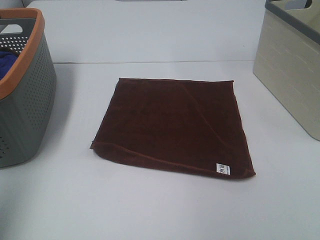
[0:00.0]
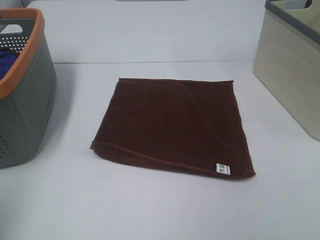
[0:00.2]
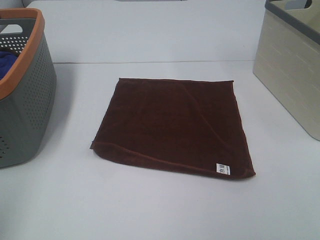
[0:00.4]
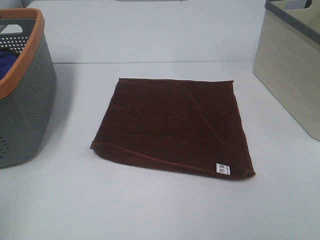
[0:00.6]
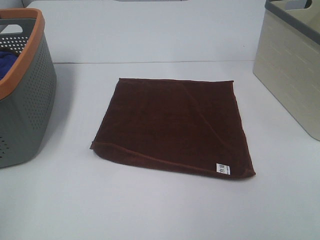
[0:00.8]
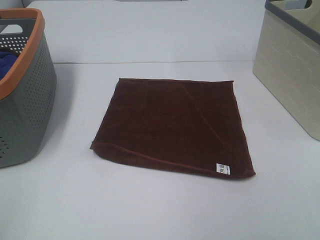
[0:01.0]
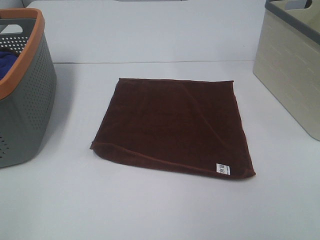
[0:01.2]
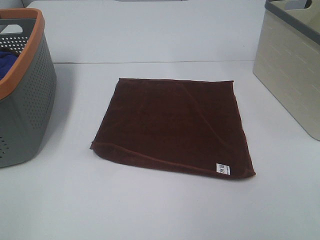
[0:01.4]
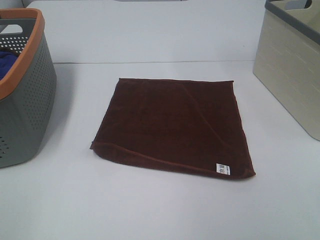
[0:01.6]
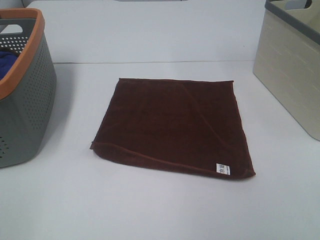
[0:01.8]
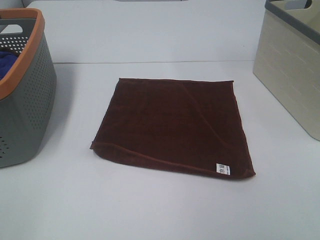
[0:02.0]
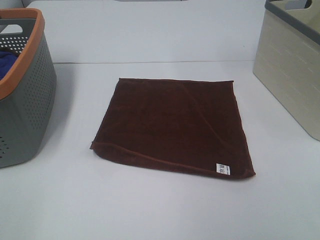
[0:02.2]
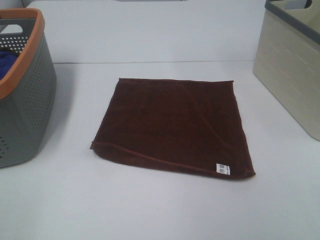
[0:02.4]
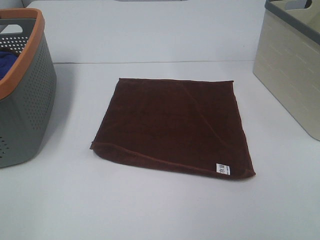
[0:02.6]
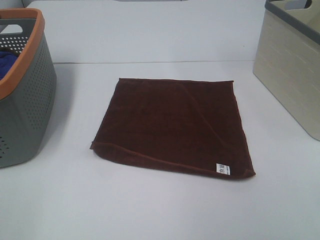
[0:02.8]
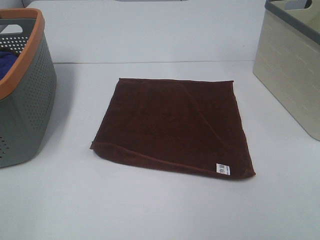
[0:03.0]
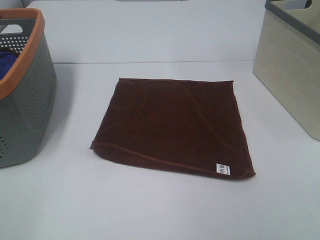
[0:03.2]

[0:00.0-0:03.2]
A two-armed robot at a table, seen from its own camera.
Task of the whole recording: Remove the towel and place it.
0:00.0 to 0:01.6: The left gripper shifts some 15 cm backward and downward.
0:01.6 to 0:03.2: The two grippers keep their place.

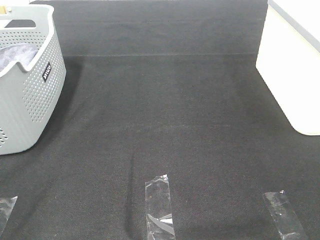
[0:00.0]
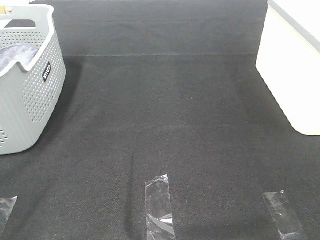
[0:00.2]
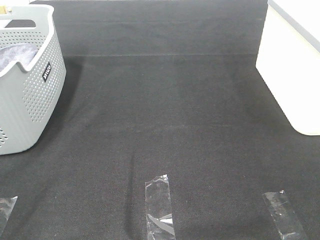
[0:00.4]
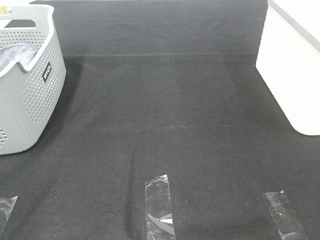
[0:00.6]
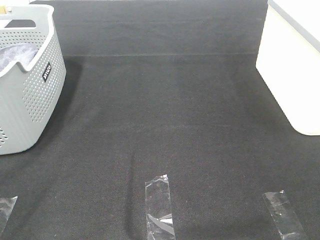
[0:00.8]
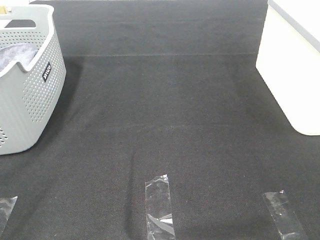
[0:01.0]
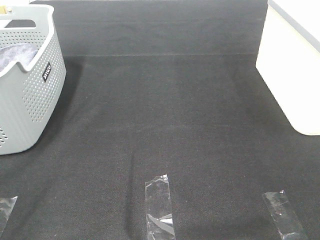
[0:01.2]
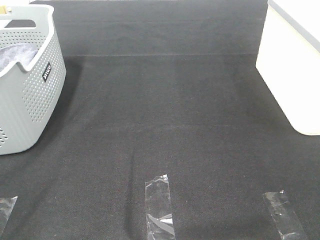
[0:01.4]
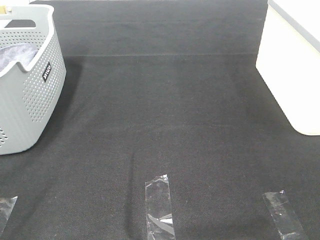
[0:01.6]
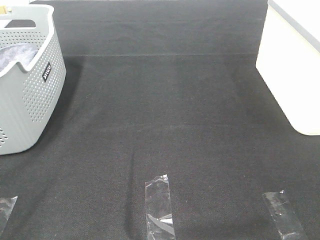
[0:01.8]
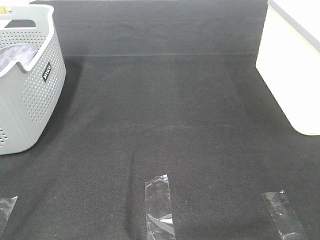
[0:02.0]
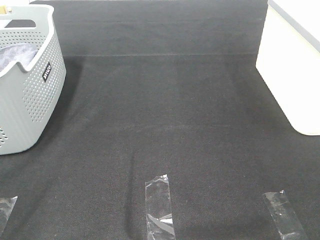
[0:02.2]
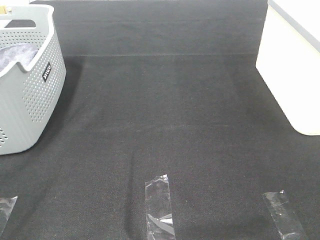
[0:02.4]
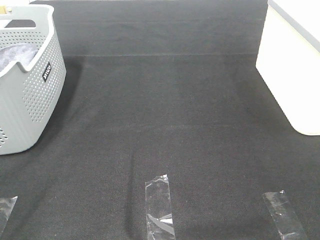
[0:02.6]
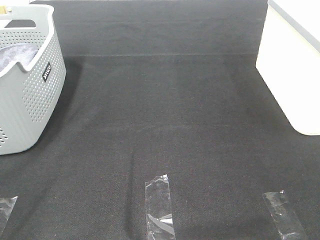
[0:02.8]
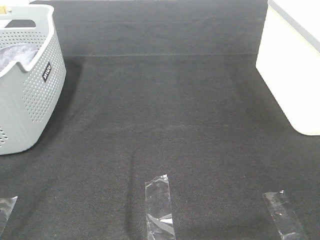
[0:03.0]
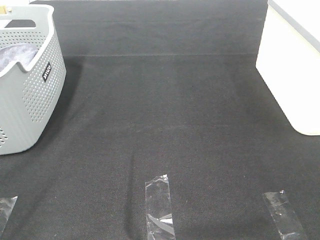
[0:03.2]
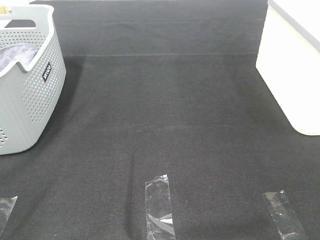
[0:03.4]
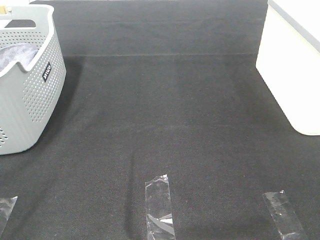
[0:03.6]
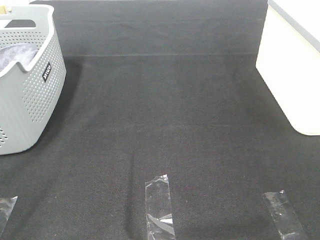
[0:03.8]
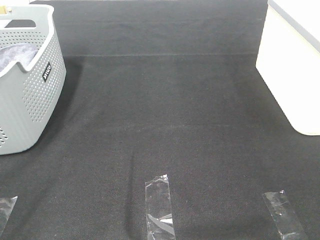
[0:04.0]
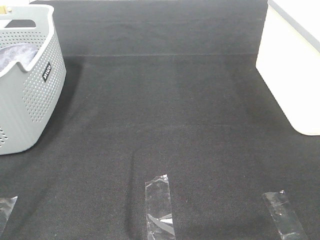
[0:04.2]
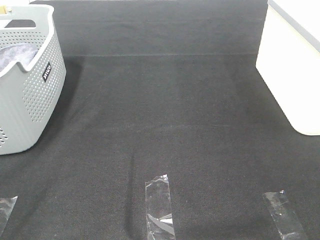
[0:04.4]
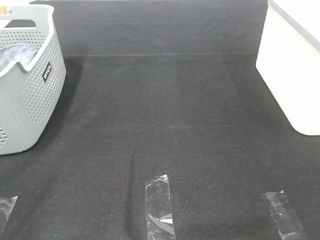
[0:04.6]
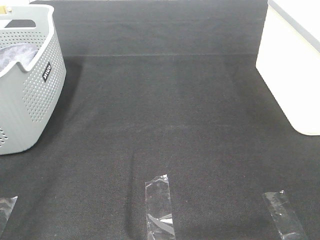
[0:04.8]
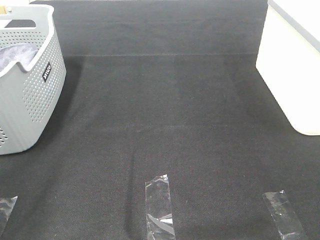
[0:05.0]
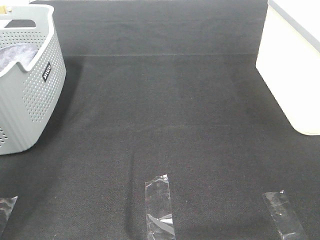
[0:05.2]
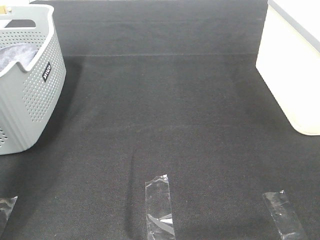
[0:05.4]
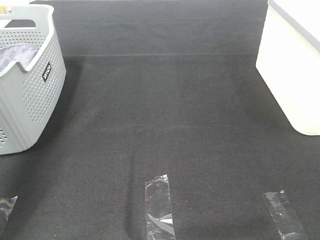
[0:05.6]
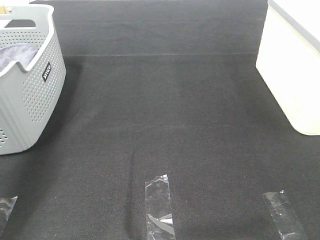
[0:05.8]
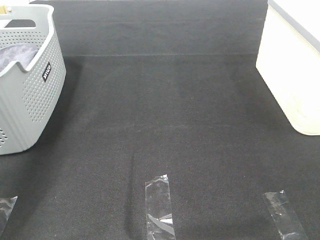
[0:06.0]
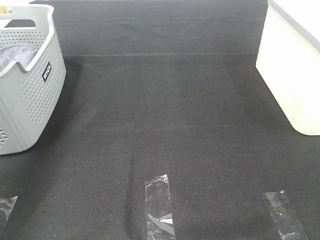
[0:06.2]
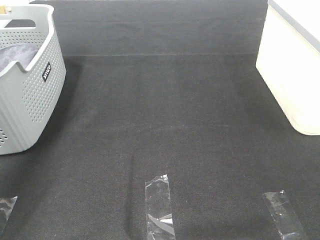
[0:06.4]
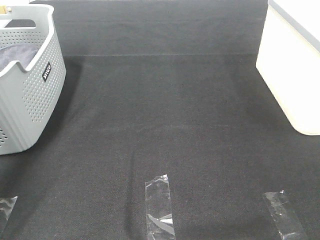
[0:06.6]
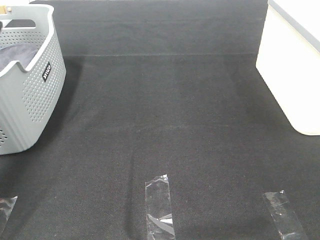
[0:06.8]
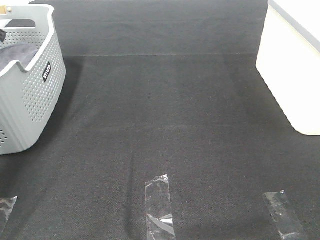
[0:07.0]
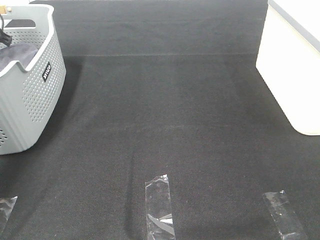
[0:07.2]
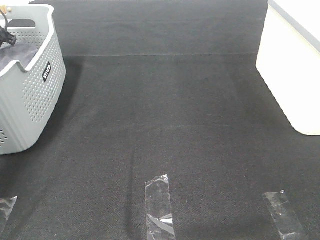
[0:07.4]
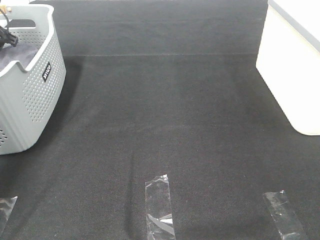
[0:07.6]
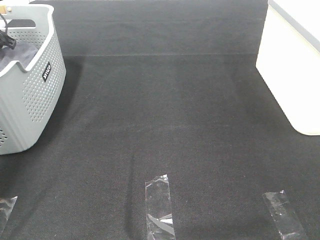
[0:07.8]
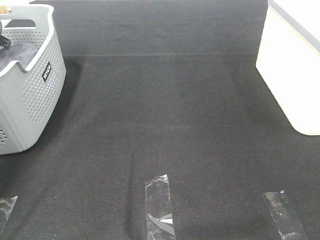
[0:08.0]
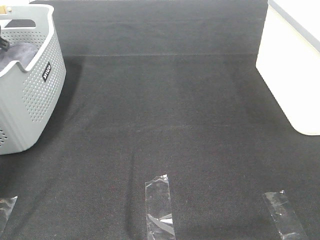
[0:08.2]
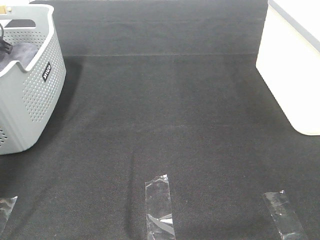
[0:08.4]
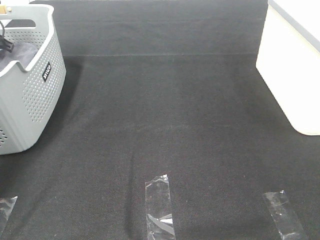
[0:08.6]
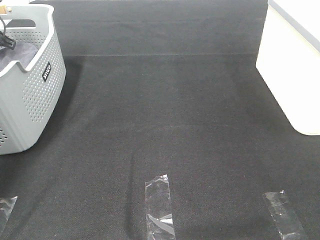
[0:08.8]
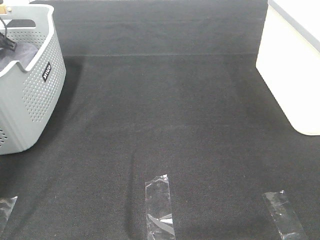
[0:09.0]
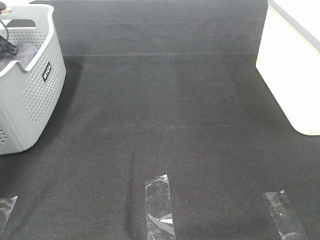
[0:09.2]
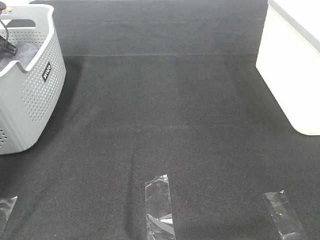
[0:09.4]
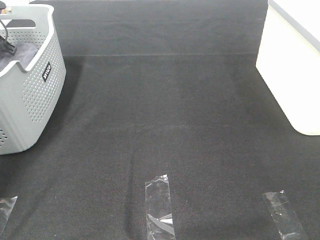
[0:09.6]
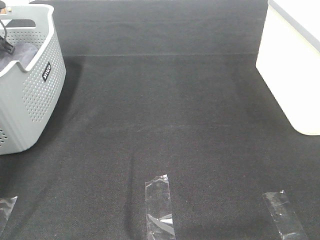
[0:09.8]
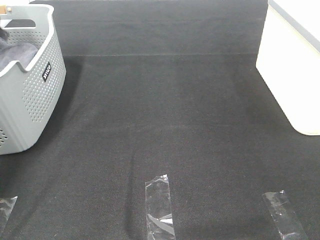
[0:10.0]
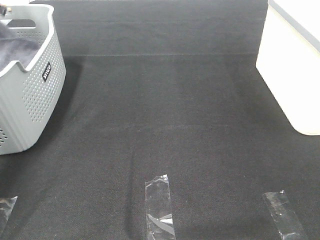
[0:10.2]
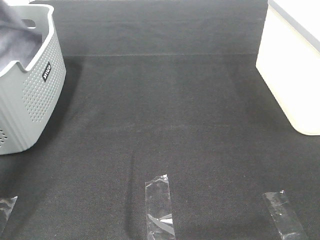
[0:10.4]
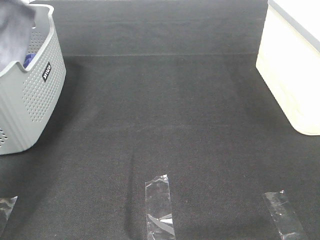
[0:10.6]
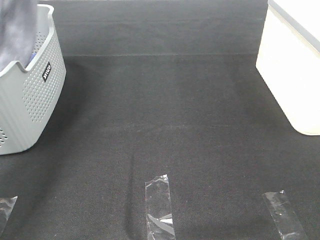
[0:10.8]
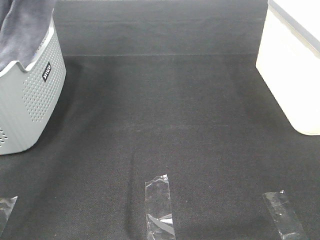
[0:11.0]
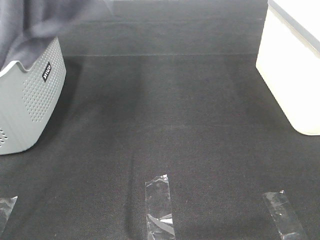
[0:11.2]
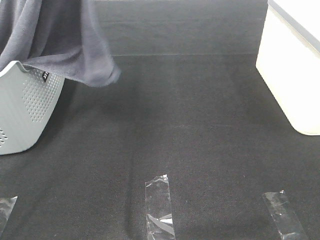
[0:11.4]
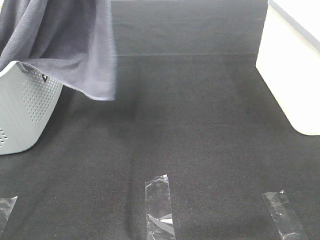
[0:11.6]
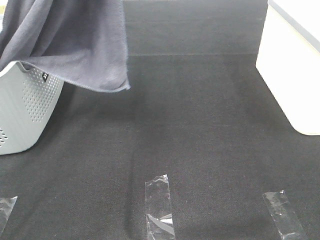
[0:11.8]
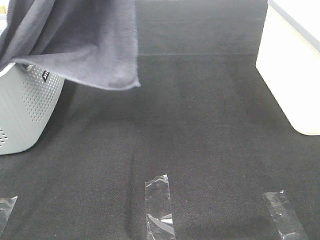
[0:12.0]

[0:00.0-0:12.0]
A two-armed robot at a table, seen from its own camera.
Task of the whole recording: Remove the towel and place it.
0:00.0 to 0:04.4: Both grippers stay put.
0:04.4 to 0:06.0: The left gripper goes about 40 cm forward.
0:06.0 to 0:07.6: The left gripper travels downward, forward and to the left by roughly 20 cm.
0:09.0 to 0:10.4: The left gripper heads upward, covering roughly 15 cm, and closes up.
0:10.4 to 0:12.0: The left gripper travels to the right, backward and upward by some 35 cm; the right gripper travels forward by roughly 5 cm.

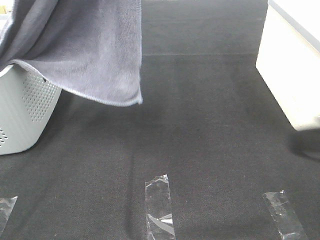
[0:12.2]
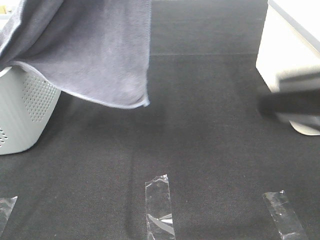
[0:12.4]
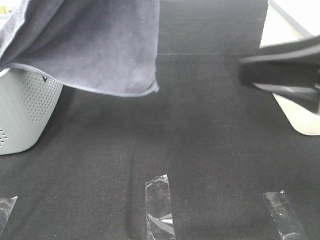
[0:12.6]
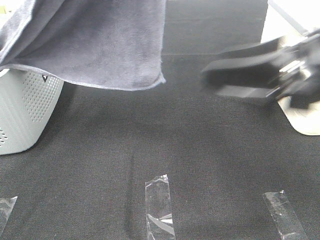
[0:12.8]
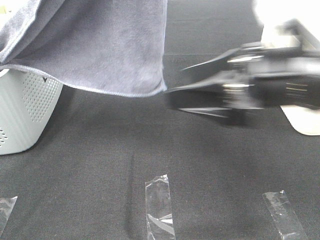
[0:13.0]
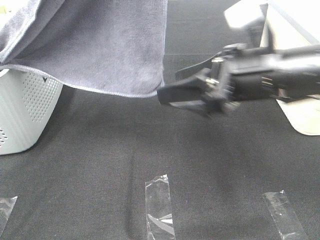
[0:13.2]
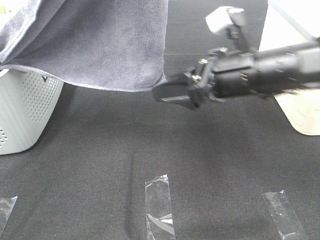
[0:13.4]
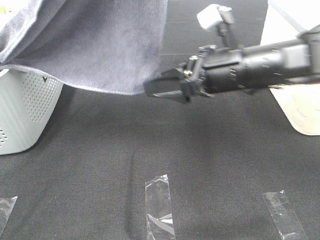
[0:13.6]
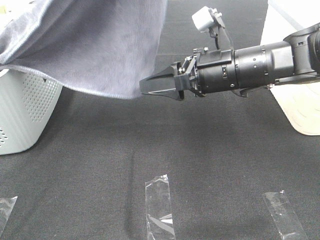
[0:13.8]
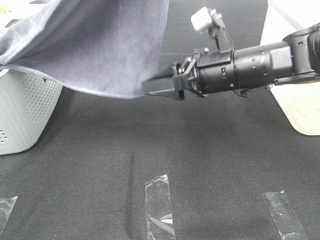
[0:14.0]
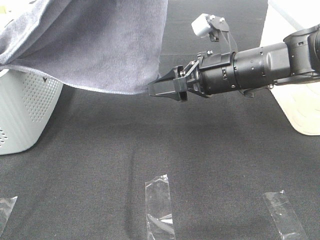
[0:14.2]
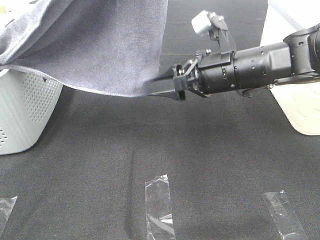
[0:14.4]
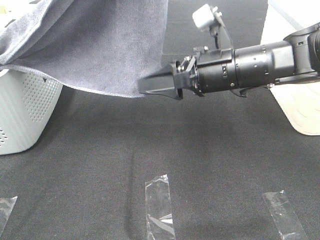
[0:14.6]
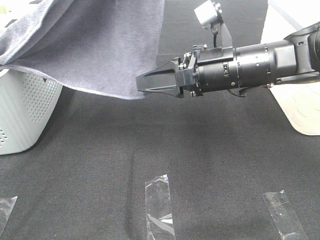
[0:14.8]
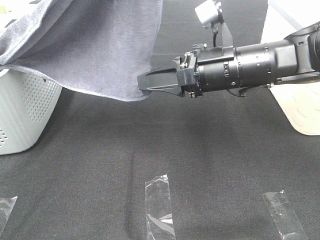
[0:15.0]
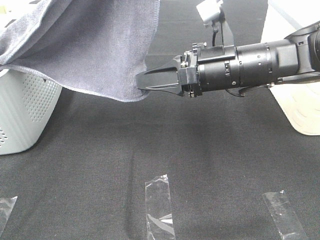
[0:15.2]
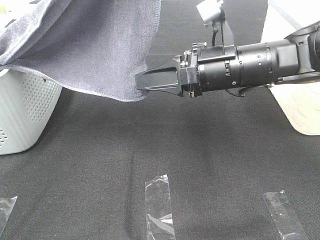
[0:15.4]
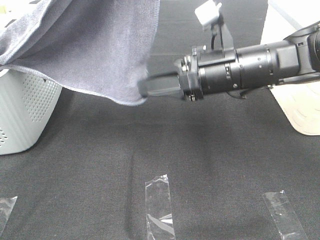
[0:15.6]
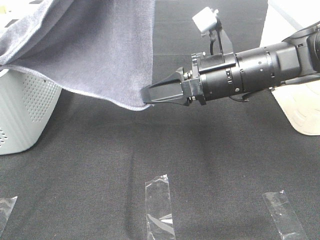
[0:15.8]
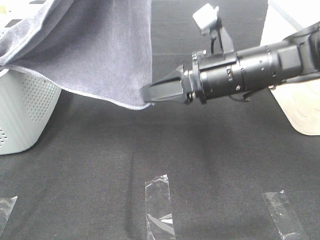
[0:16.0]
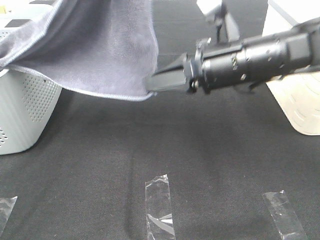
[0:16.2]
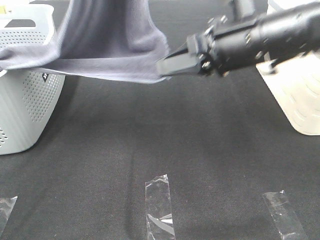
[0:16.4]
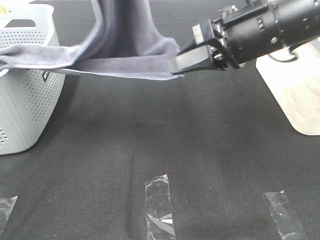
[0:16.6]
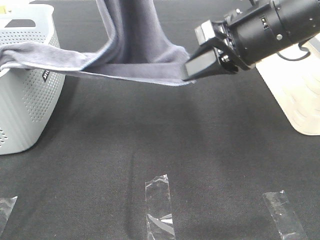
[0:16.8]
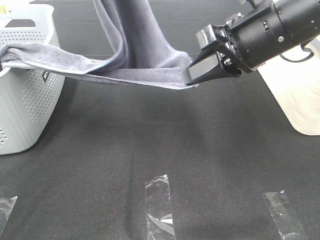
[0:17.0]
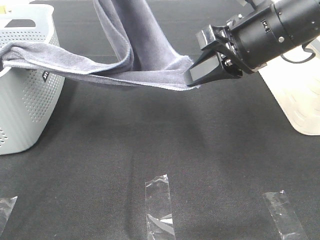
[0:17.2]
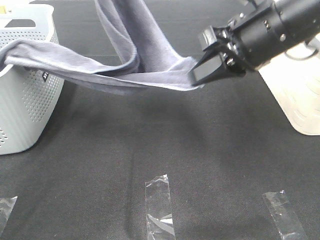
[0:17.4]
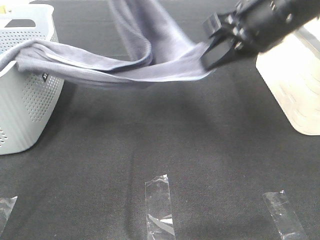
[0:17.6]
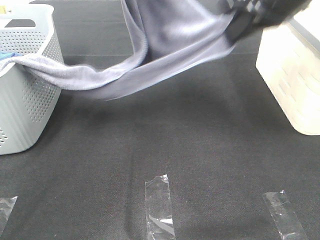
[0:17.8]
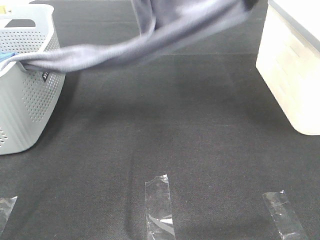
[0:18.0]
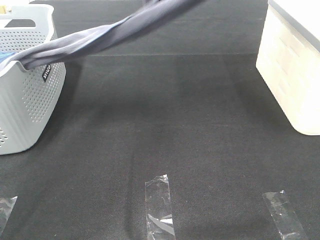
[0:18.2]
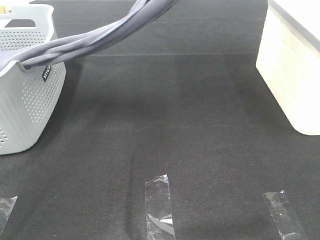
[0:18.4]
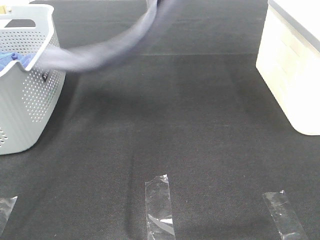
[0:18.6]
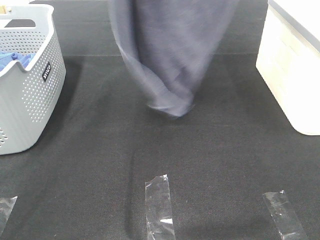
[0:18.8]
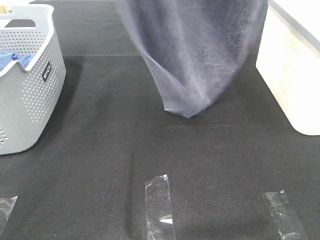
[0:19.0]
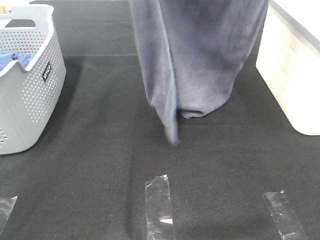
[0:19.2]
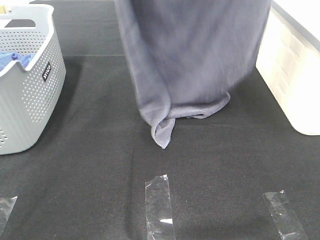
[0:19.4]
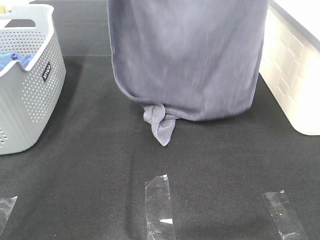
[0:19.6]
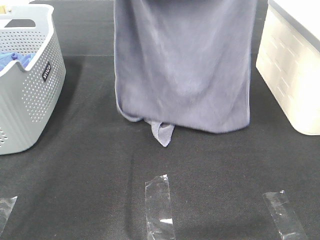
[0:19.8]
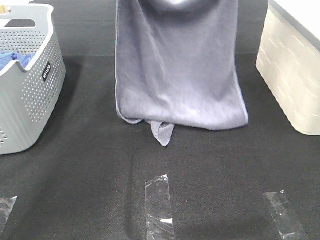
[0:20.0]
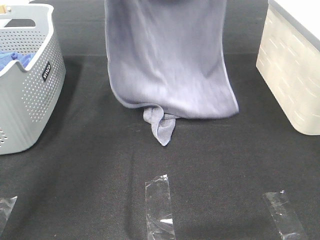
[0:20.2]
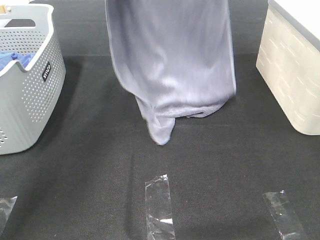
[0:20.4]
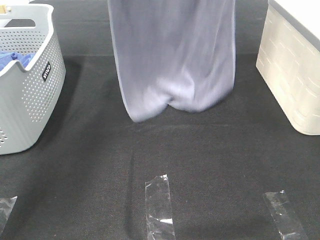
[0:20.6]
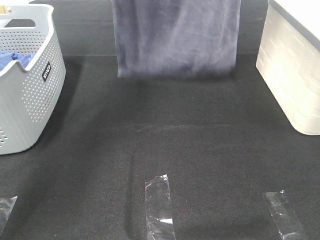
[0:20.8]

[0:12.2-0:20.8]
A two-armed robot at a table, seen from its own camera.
Task of the whole recording: Remove the towel and place it.
Step, 0:12.2 to 0:15.4: Right hand: grab a corner of the grey towel and straighten it.
Step, 0:15.6 to 0:19.8: Left hand: spread the grey towel flat on the table.
Step, 0:15.6 to 0:19.8: Right hand: spread the grey towel flat on the table.
0:12.2 to 0:13.6: The right gripper shifts some 25 cm forward, to the left and downward.
0:13.6 to 0:15.0: There are only small adjustments of the grippers.
0:15.0 to 0:16.6: The right gripper moves upward, approximately 10 cm, and closes.
0:16.6 to 0:18.0: The right gripper heads upward, covering some 10 cm; the left gripper goes some 10 cm forward.
0:18.0 to 0:19.4: The right gripper moves upward, roughly 10 cm, while the left gripper goes some 5 cm upward.
0:19.4 to 0:20.8: The grippers both shift forward by roughly 10 cm. The left gripper goes downward and returns, roughly 10 cm each way, while the right gripper travels downward and back again, some 15 cm each way.
